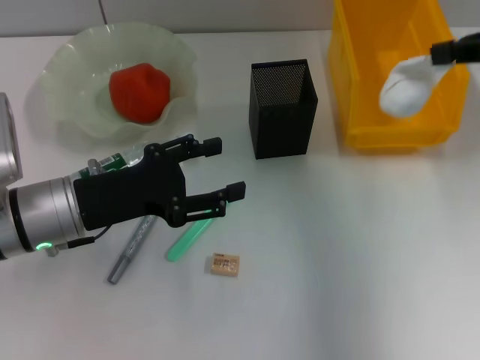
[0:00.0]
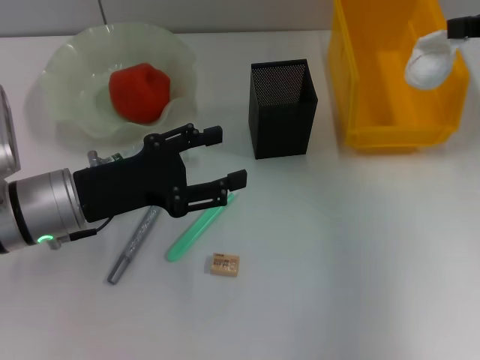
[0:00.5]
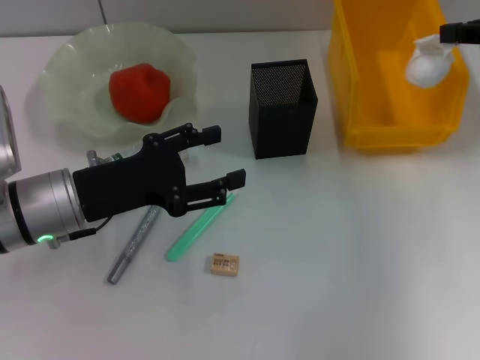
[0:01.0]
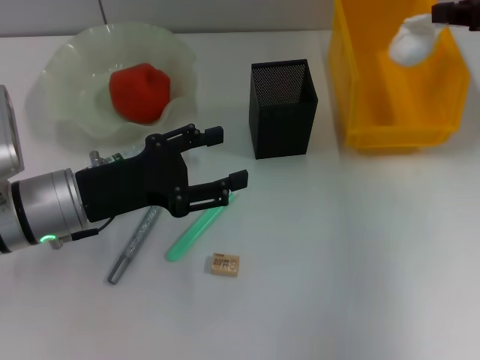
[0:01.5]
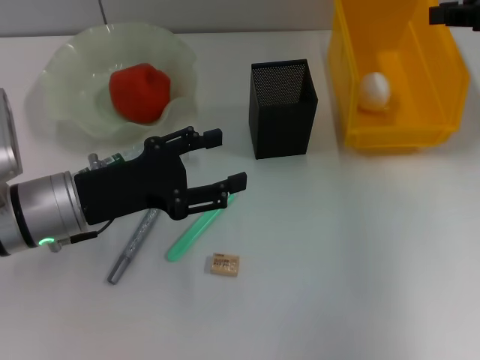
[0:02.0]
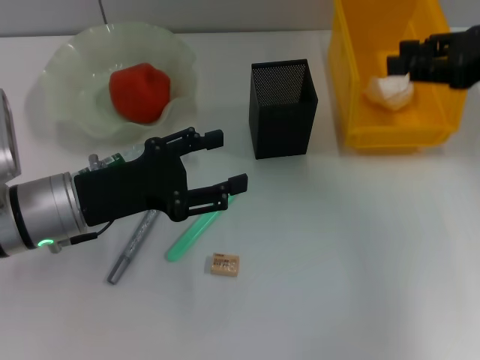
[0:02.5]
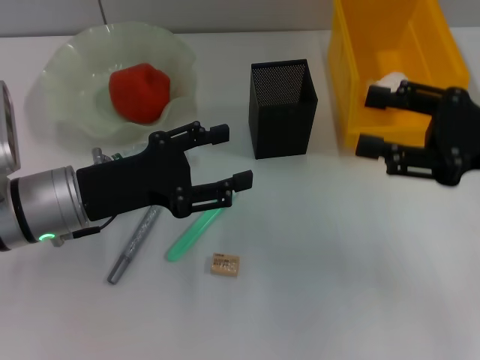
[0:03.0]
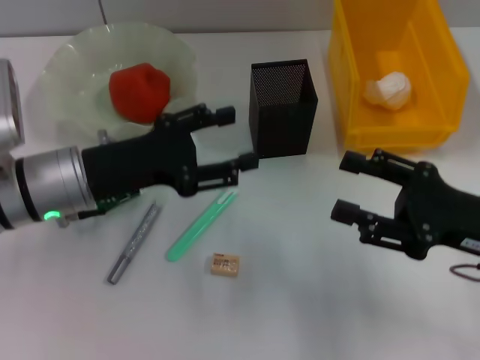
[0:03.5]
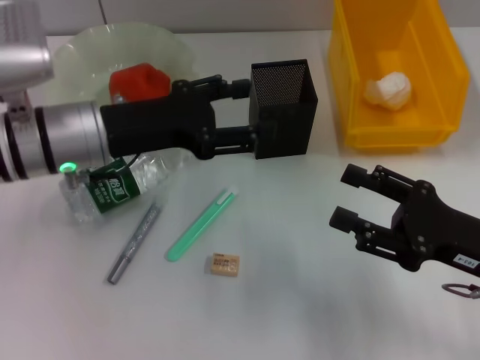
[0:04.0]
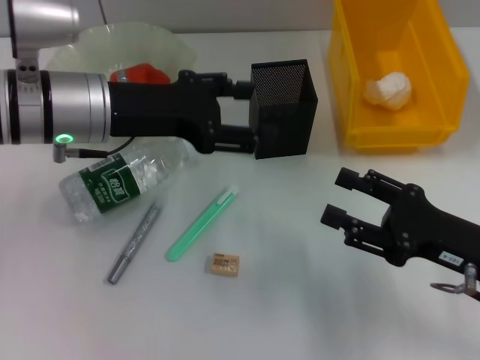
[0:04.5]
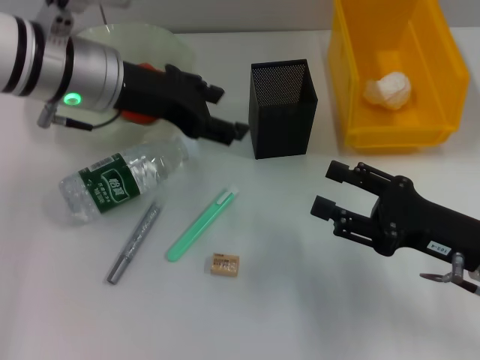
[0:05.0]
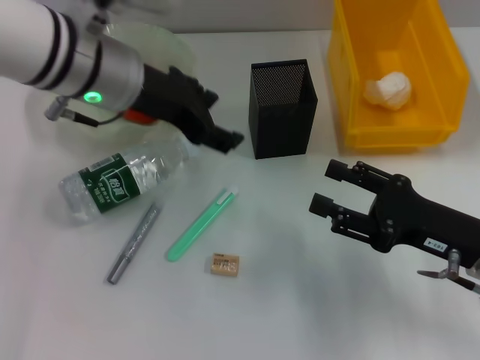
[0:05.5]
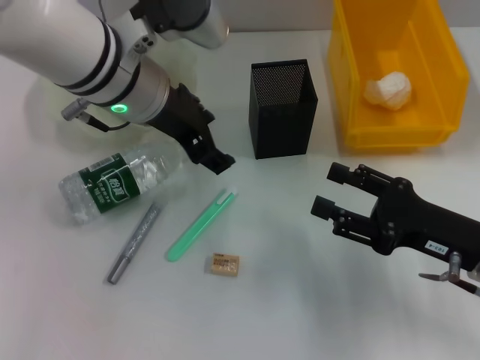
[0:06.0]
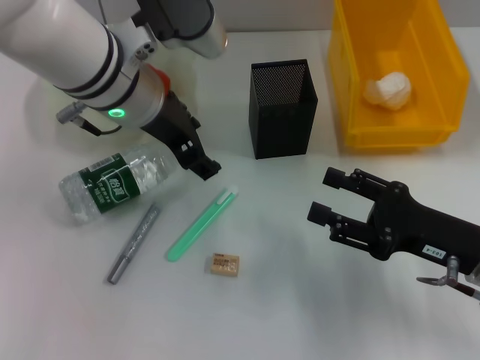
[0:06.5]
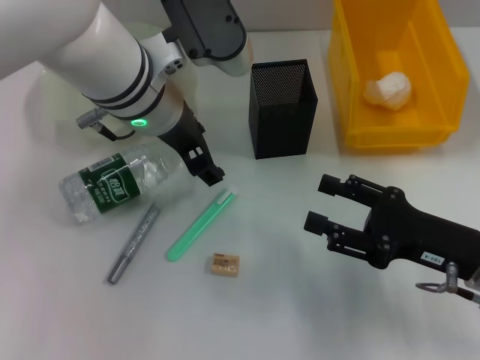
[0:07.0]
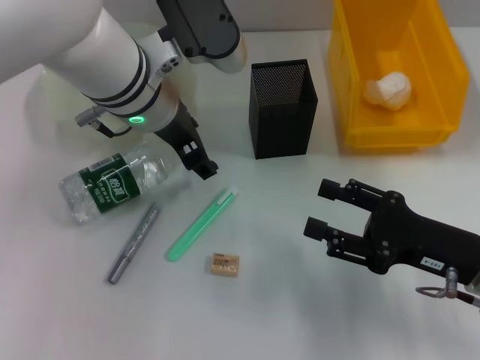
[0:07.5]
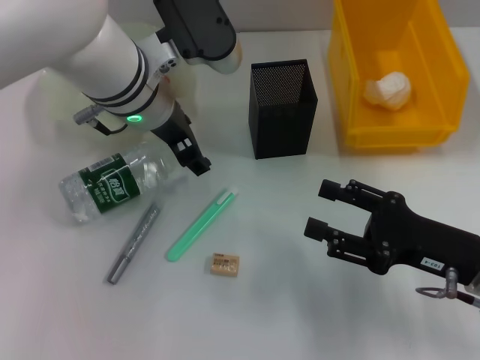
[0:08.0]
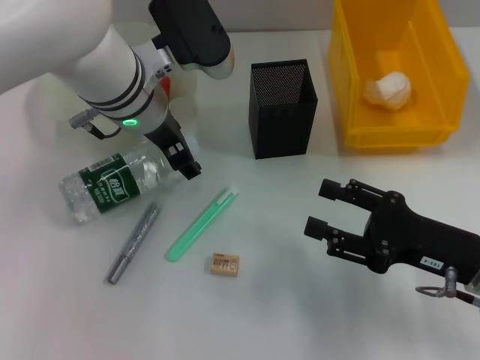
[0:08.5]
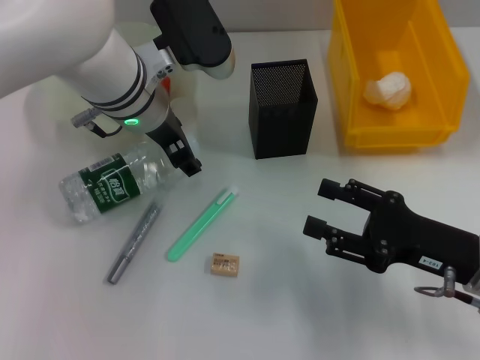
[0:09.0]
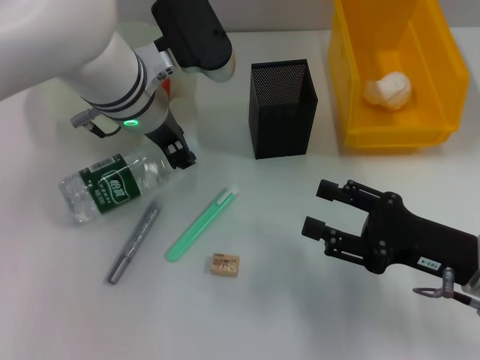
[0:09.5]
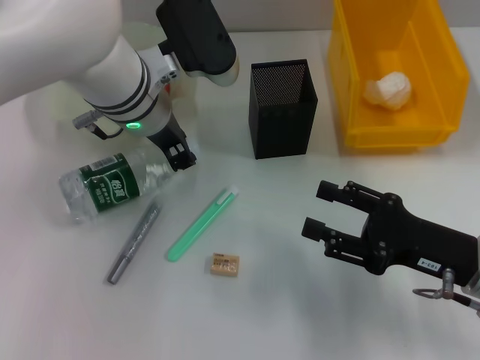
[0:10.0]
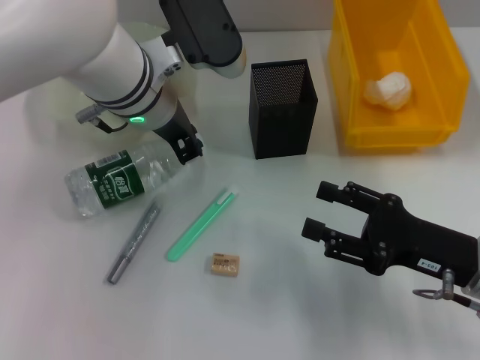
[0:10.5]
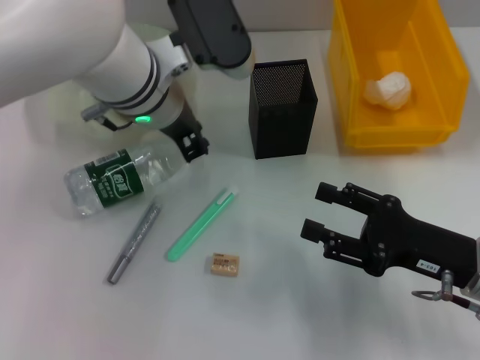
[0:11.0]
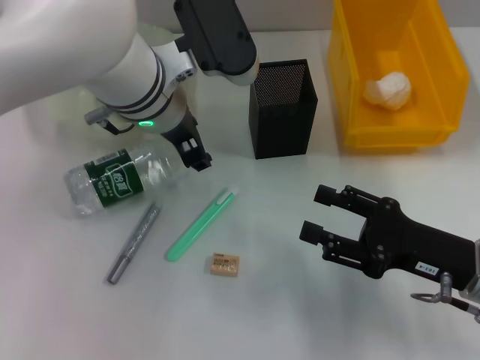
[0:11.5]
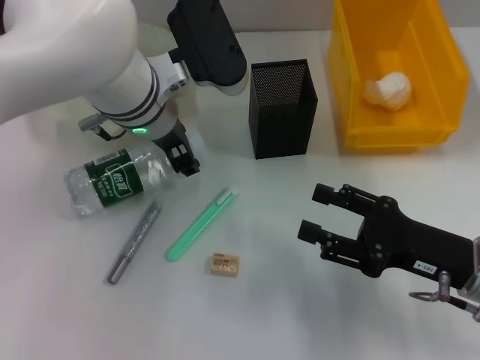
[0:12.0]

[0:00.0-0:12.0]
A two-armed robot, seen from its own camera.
Step, 0:00.0 to 0:02.0: Place the paper ball into the trash can with the right hand.
0:00.0 to 0:02.0: The right gripper shifts approximately 5 cm forward.
0:02.0 to 0:04.0: The right gripper travels backward and downward by roughly 25 cm, and opens its fingers. Meanwhile the left gripper heads upward, covering about 5 cm.
0:04.0 to 0:06.0: The left gripper travels to the right and upward by about 10 cm.
0:06.0 to 0:08.0: The grippers stay close to where they were, moving slightly.
0:08.0 to 0:10.0: The left gripper closes its fingers.
0:10.0 to 0:12.0: The grippers move only a little.

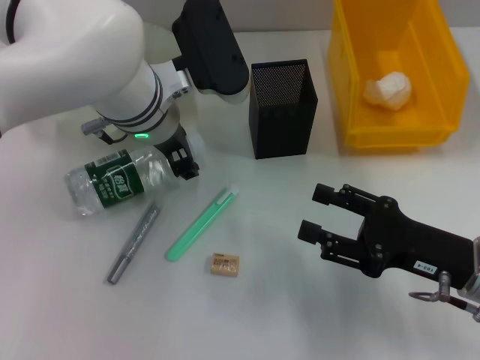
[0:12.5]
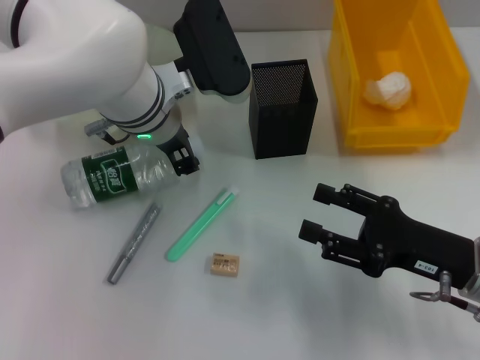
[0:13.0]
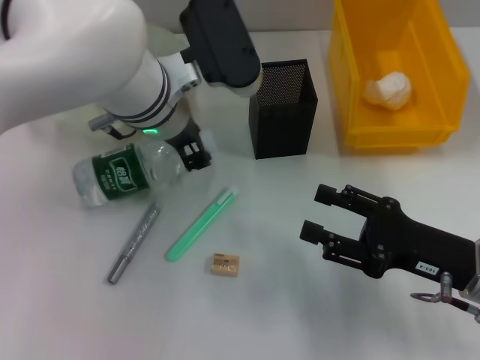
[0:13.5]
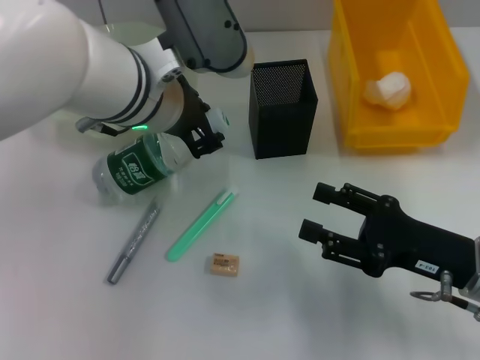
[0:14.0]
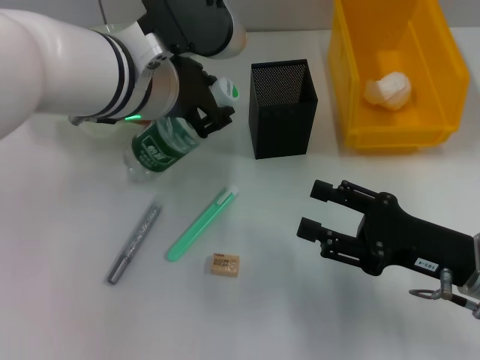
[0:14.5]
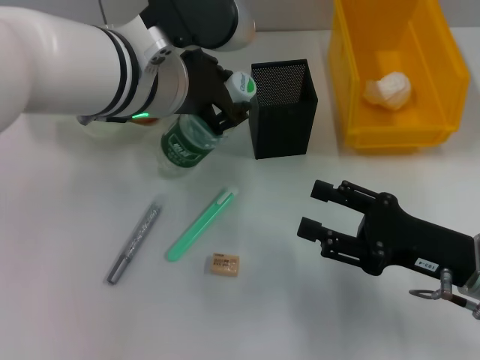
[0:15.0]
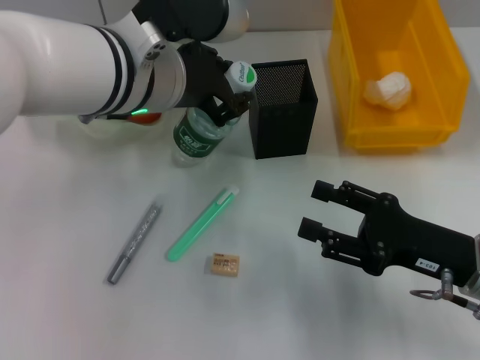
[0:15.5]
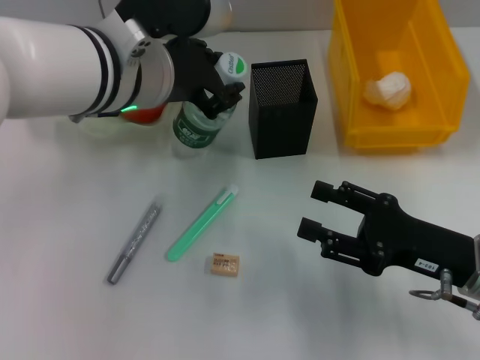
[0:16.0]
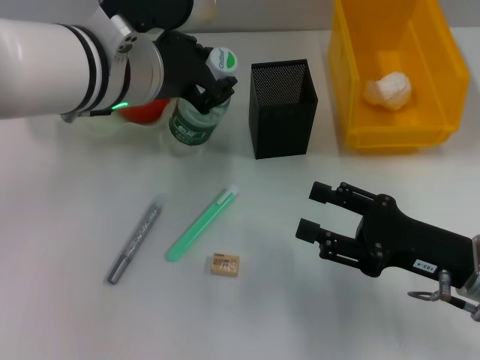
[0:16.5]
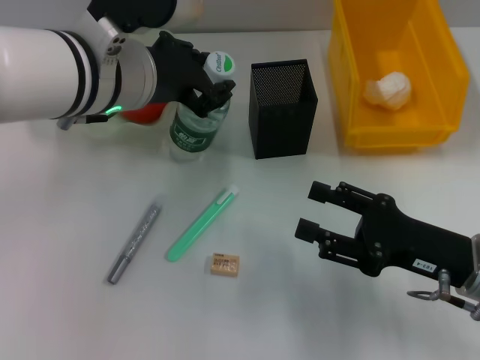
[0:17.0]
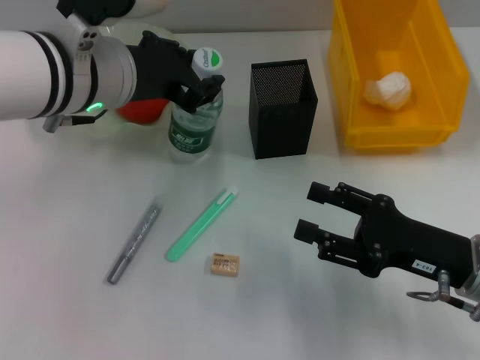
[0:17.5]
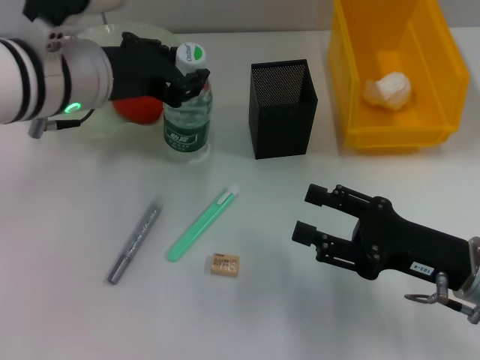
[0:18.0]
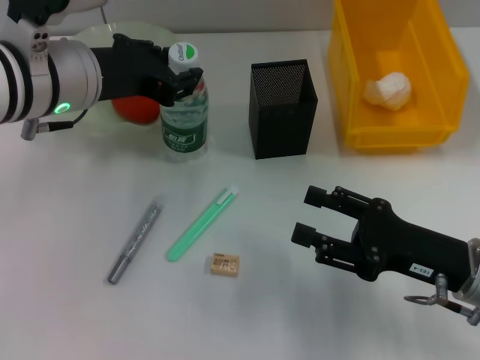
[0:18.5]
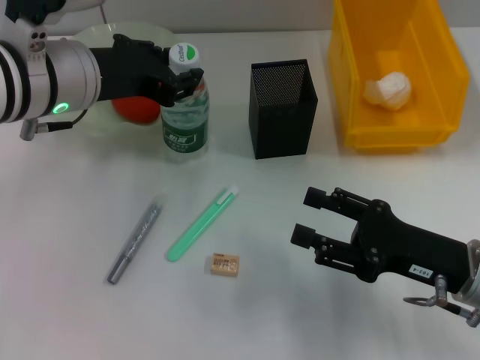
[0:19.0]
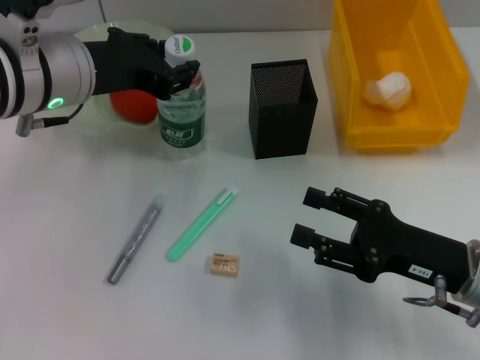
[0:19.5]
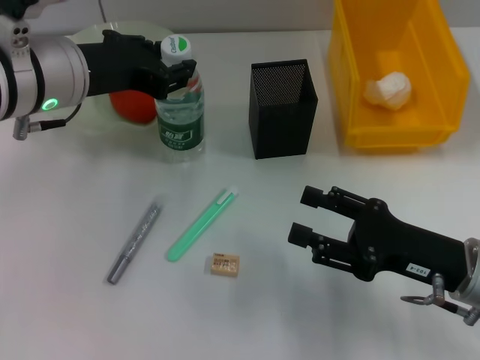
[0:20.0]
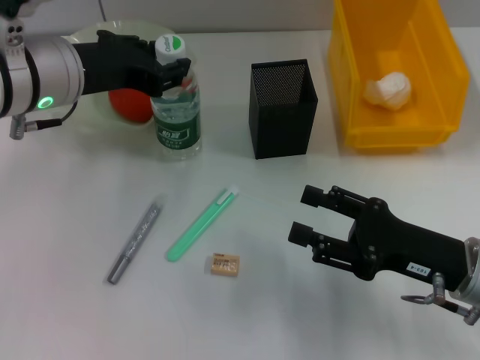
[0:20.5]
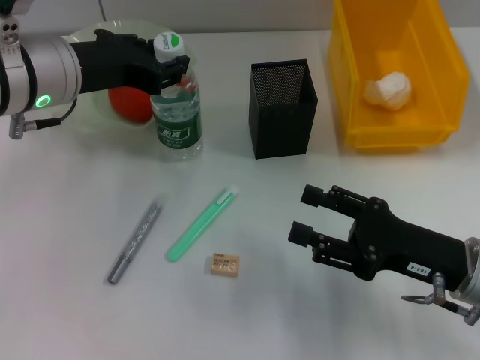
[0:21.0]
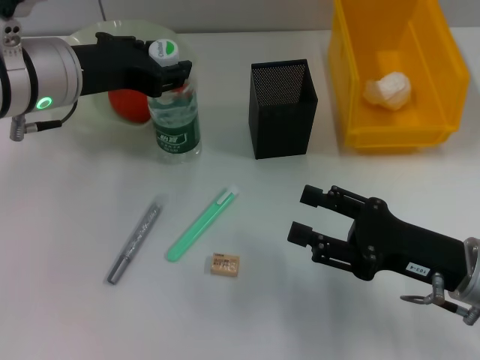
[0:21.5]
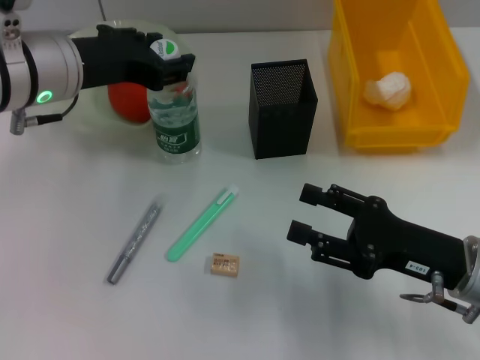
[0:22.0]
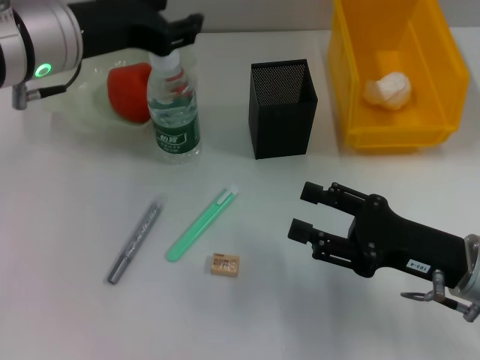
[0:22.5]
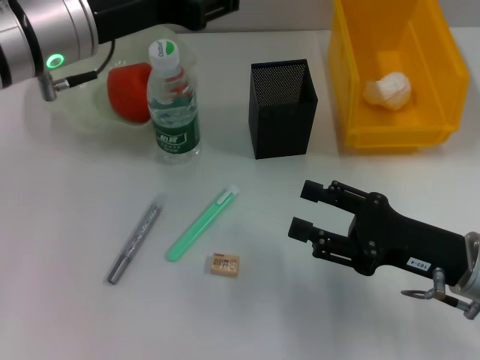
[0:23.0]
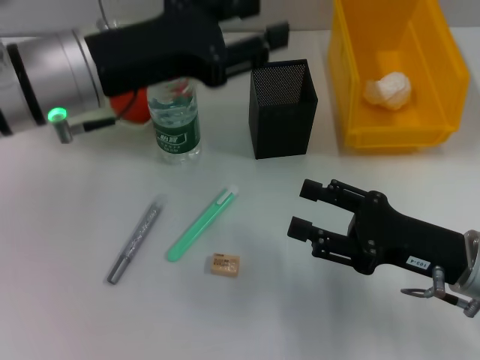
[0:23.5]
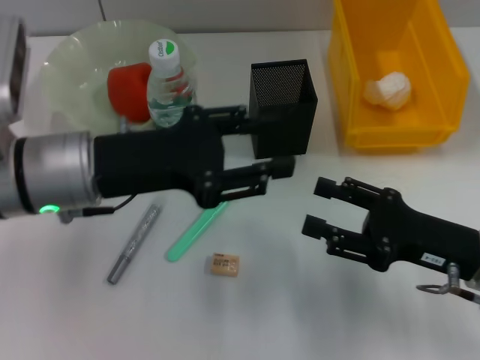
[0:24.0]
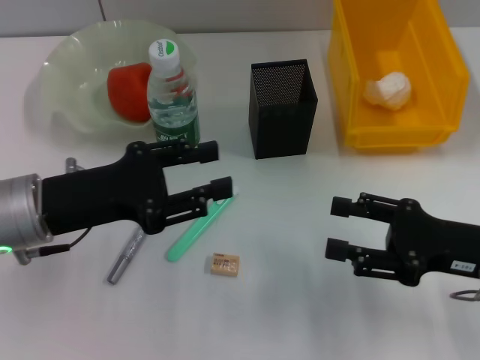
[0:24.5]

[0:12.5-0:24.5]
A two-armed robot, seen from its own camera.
Step, 0:13.5 to 0:22.0: Place the water bottle on the table with the left hand.
0:12.5 to 0:14.5: The left gripper heads upward, covering roughly 5 cm.
0:14.5 to 0:16.5: The grippers move only a little.
0:16.5 to 0:18.5: The left gripper shifts roughly 5 cm to the left.
0:18.5 to 0:22.5: There are only small adjustments of the grippers.
0:22.5 to 0:24.5: The left gripper moves downward and backward, about 15 cm.

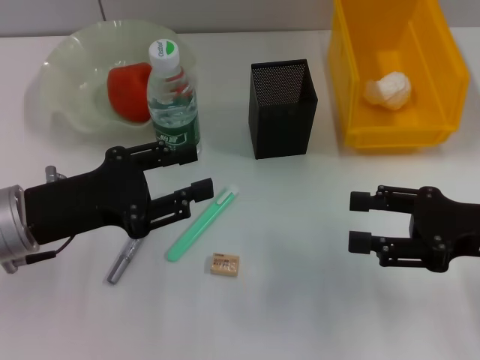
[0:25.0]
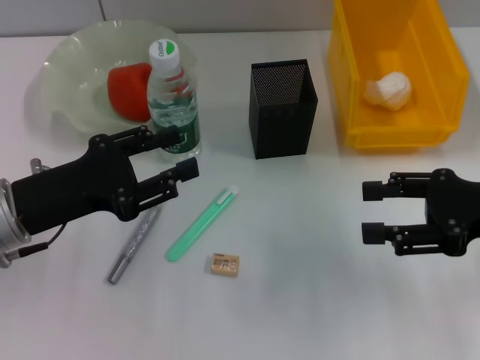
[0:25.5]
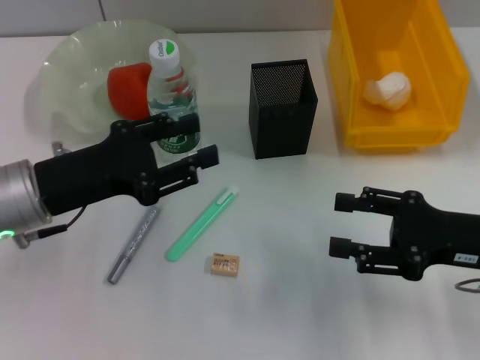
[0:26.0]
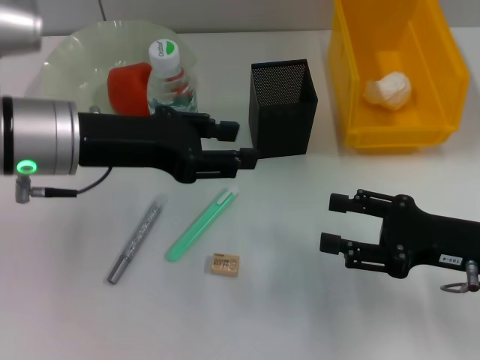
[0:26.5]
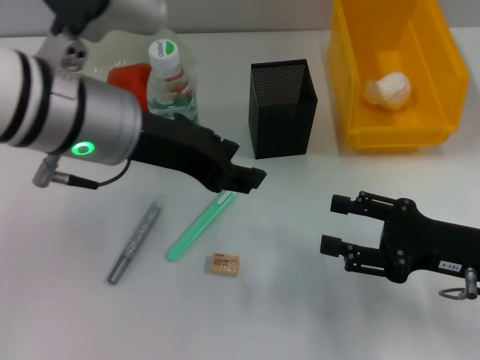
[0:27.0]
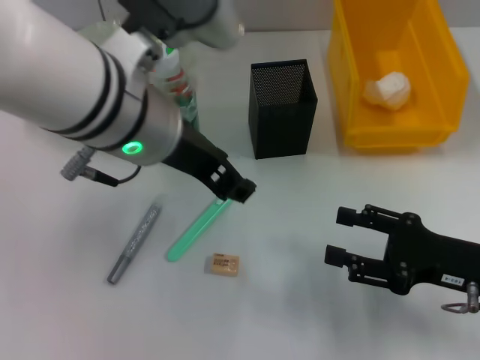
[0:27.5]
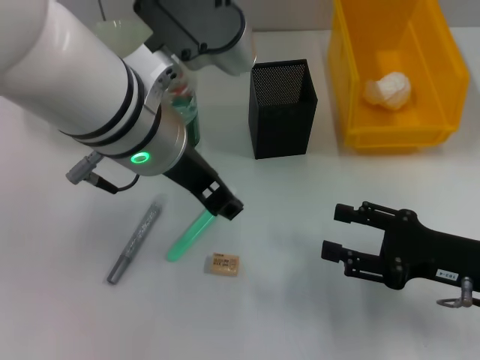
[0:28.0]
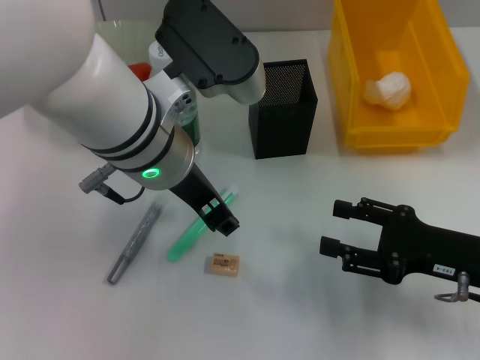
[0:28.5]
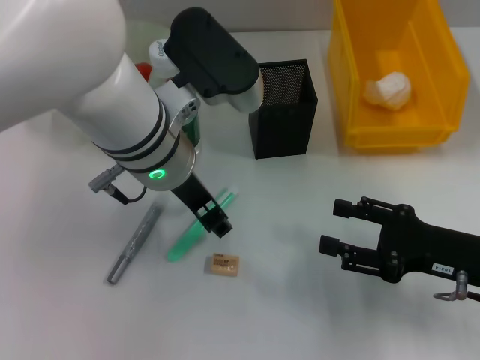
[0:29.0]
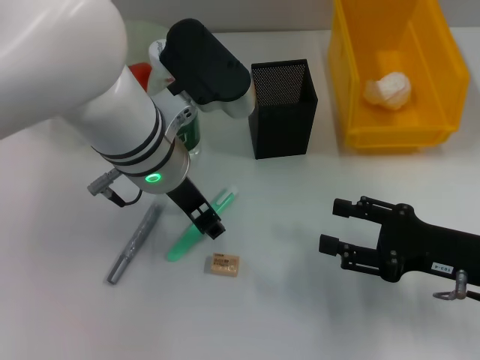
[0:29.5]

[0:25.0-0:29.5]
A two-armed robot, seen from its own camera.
0:25.0 to 0:27.0: The left gripper shifts about 15 cm upward and to the right.
0:27.0 to 0:29.5: The left gripper travels downward by about 5 cm.
